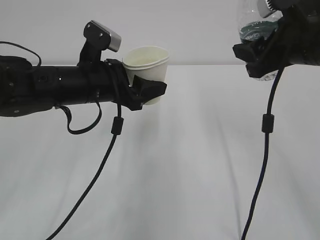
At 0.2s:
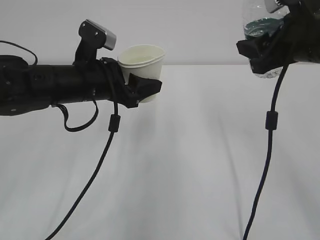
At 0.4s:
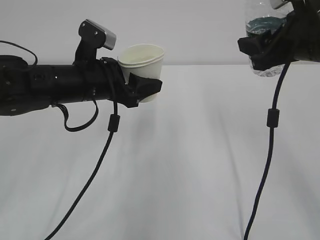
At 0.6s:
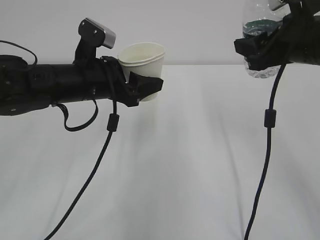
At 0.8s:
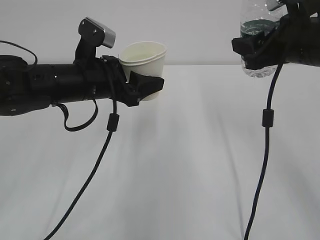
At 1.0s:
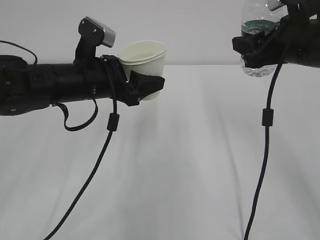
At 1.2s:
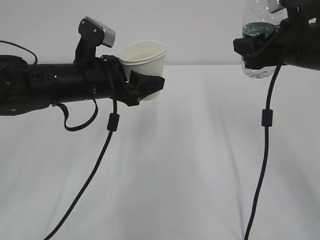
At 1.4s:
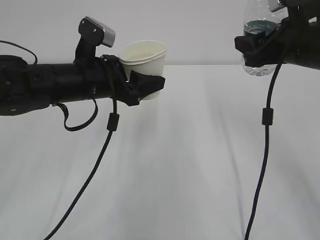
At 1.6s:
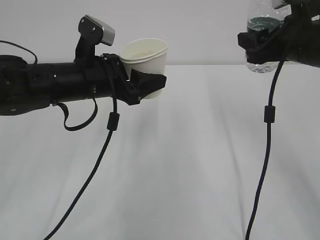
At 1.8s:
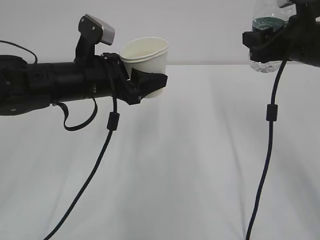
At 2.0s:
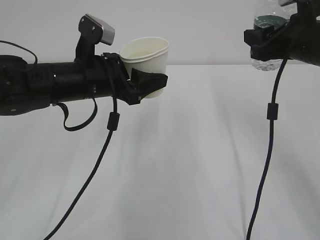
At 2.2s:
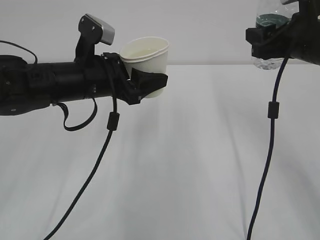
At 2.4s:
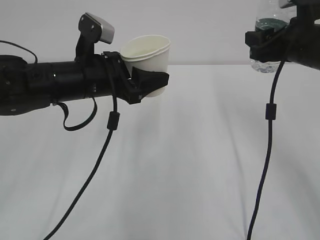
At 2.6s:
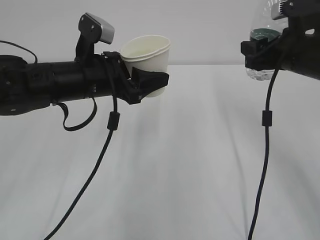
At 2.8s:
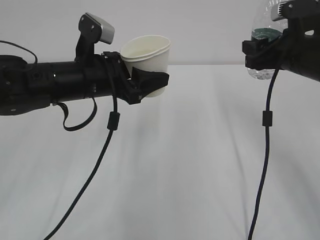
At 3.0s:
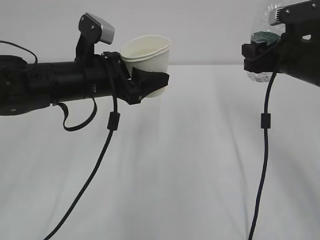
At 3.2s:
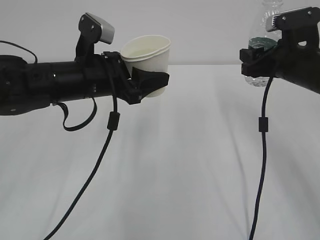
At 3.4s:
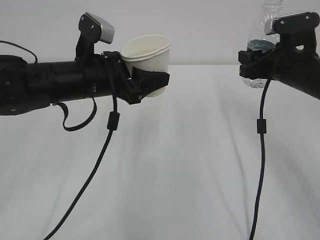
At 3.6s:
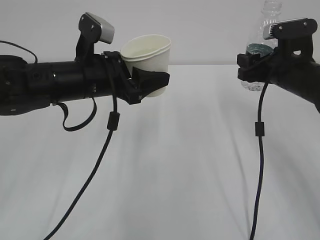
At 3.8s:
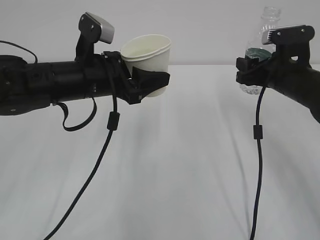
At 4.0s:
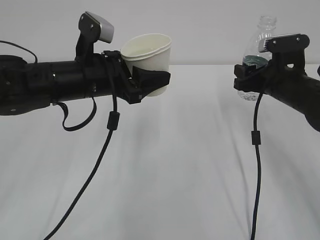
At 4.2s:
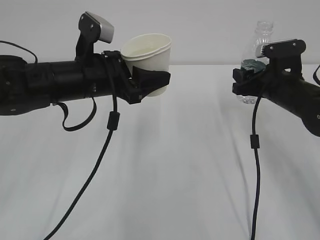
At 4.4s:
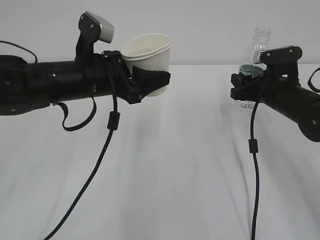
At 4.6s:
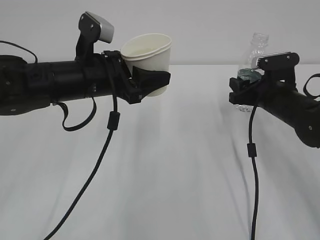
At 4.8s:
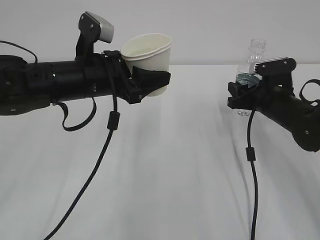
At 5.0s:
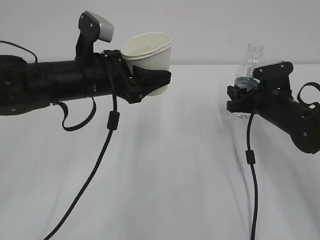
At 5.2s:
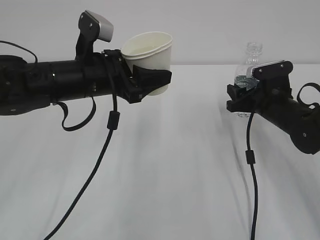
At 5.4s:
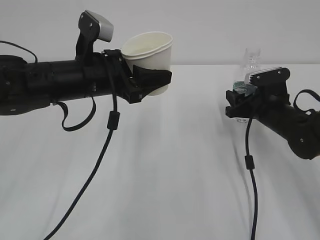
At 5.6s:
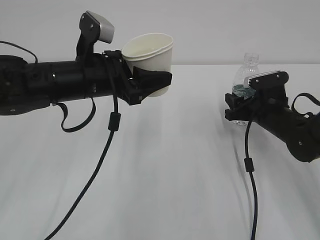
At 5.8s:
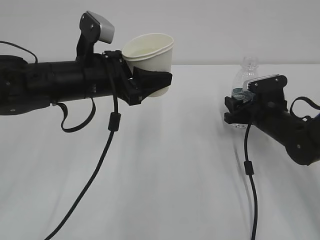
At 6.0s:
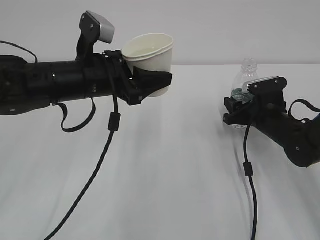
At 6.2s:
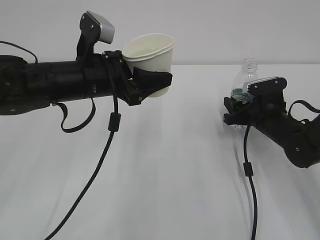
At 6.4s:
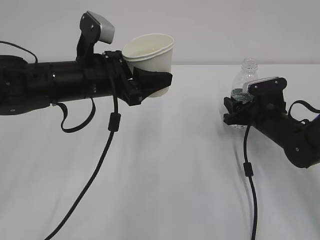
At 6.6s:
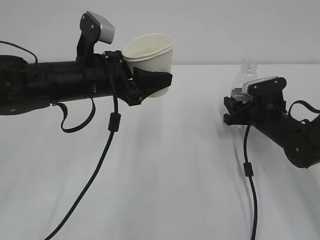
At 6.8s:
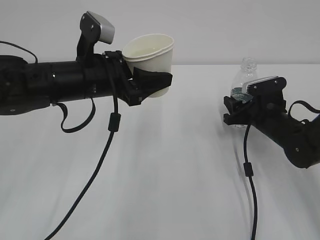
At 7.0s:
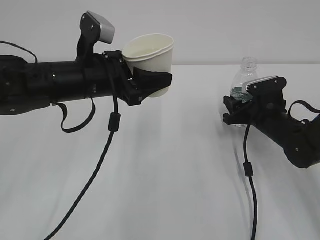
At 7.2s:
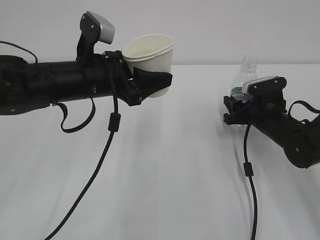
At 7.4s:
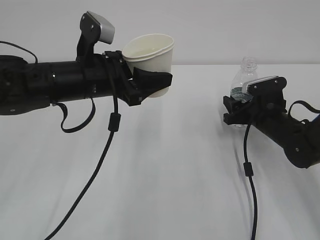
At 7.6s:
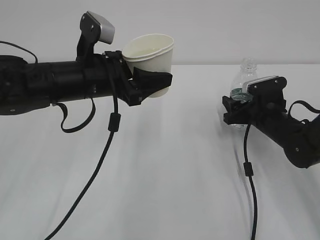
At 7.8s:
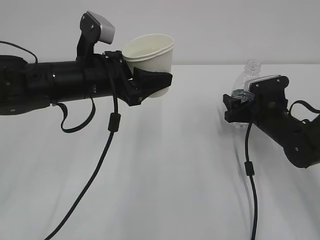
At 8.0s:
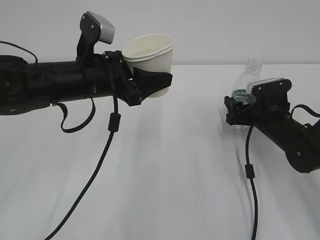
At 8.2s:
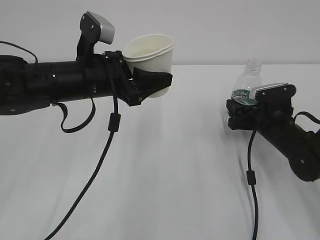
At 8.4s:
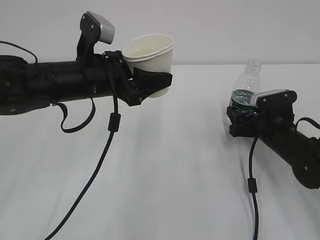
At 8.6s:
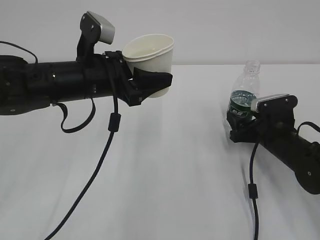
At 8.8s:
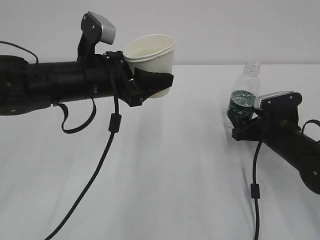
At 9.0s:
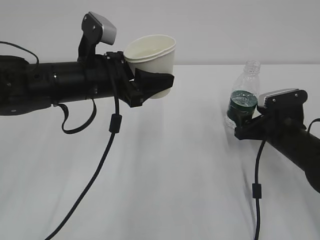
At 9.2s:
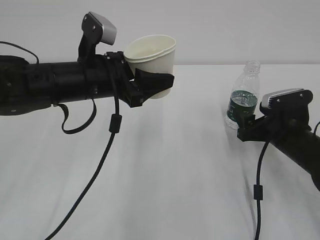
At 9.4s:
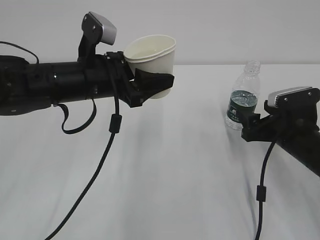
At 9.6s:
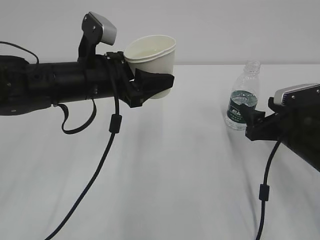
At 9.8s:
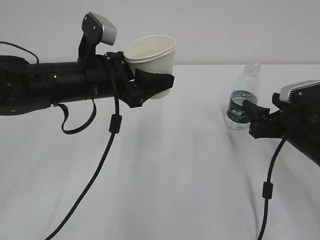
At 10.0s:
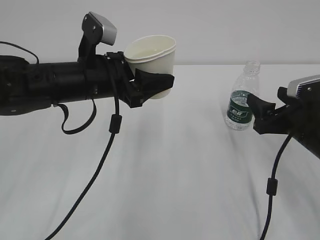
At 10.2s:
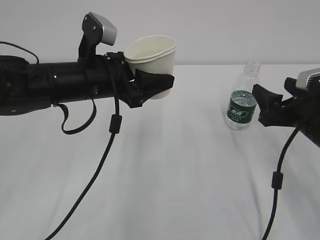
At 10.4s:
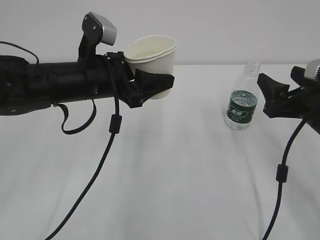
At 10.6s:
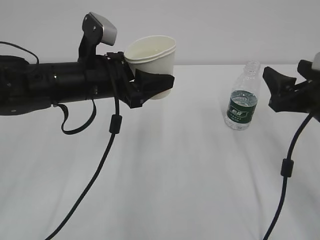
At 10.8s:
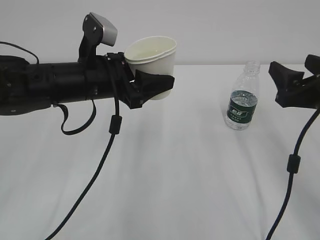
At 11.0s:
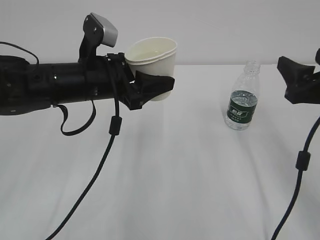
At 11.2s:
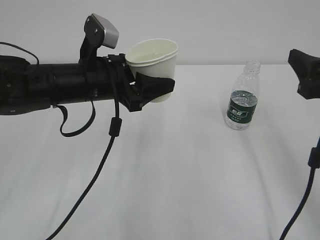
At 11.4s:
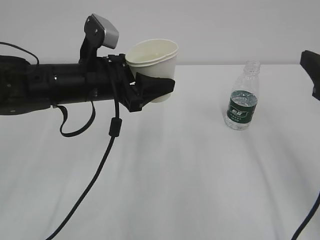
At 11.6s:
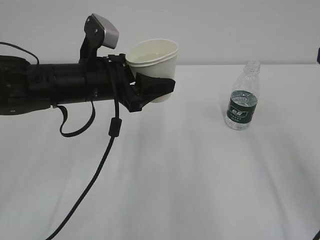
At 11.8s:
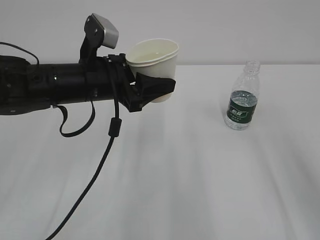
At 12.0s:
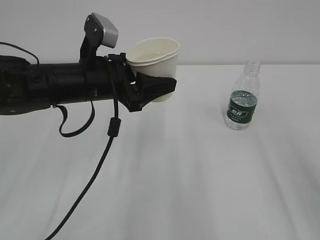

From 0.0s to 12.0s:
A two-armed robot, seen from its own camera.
From 0.0s to 1.6s: There are only small adjustments of the grippers.
From 1.6s to 3.0s: The grippers make only small movements.
From 3.0s to 4.4s: The right gripper is displaced downward by roughly 10 cm.
From 4.4s to 6.0s: The right gripper moves downward, about 5 cm.
From 6.0s to 7.6s: The right gripper opens its fingers.
From 7.6s to 9.0s: The right gripper is displaced backward by about 5 cm, and opens up.
From 9.0s to 10.4s: The right gripper goes approximately 10 cm upward and backward.
From 10.4s to 12.0s: The right gripper moves backward and upward, approximately 20 cm.

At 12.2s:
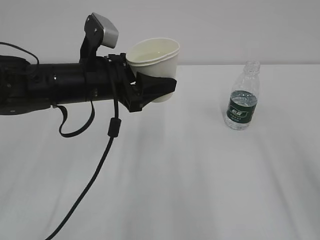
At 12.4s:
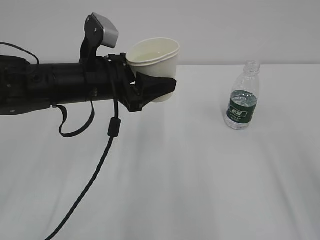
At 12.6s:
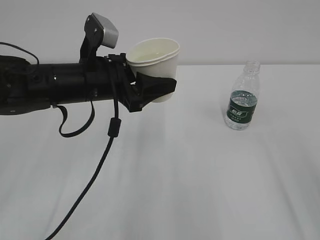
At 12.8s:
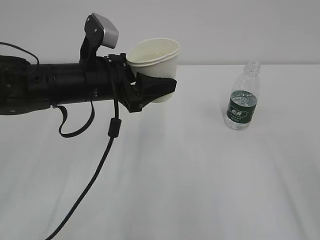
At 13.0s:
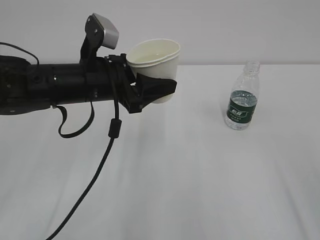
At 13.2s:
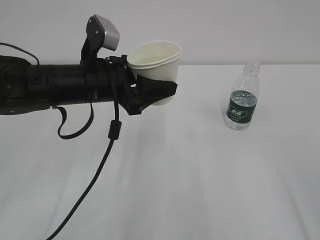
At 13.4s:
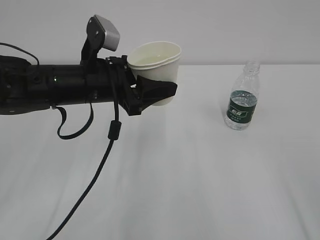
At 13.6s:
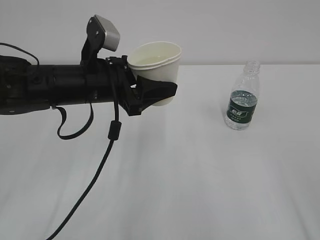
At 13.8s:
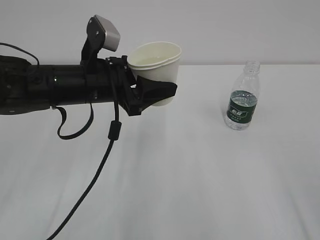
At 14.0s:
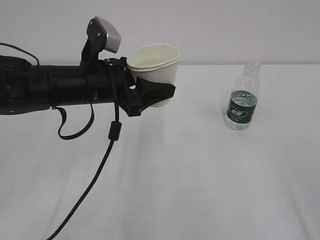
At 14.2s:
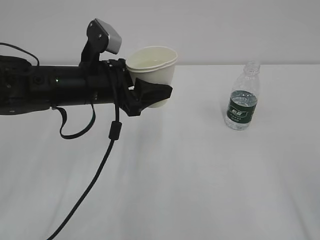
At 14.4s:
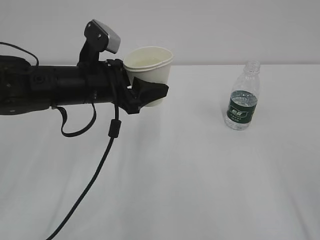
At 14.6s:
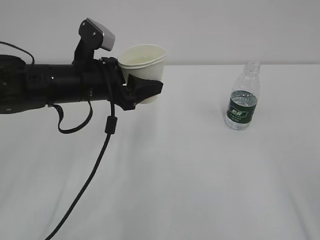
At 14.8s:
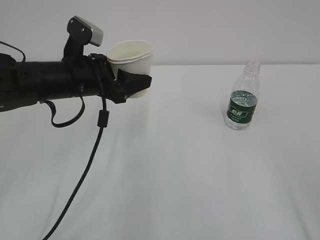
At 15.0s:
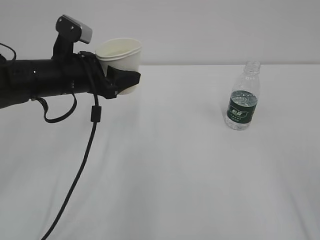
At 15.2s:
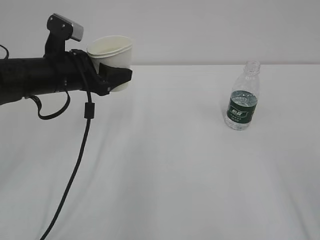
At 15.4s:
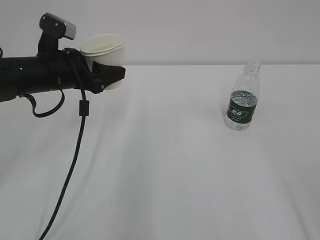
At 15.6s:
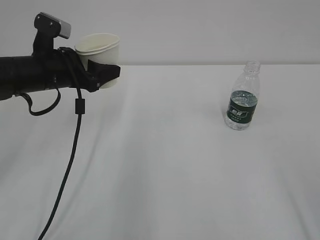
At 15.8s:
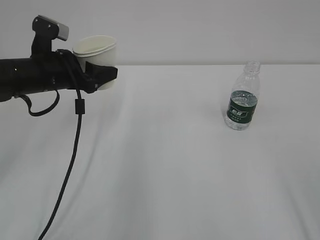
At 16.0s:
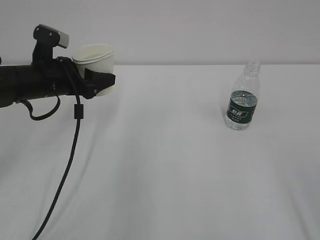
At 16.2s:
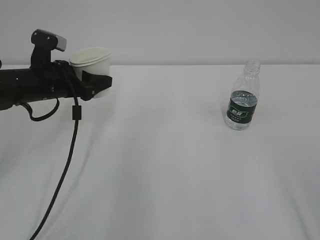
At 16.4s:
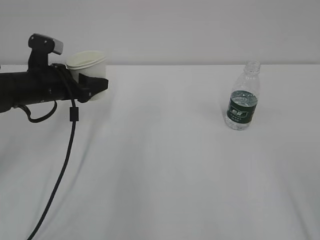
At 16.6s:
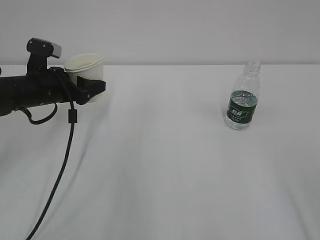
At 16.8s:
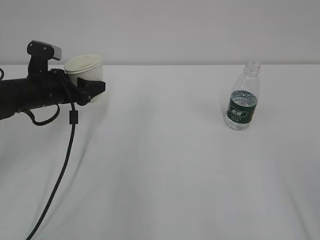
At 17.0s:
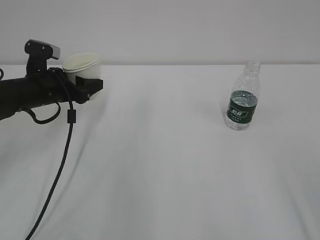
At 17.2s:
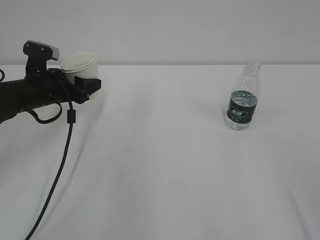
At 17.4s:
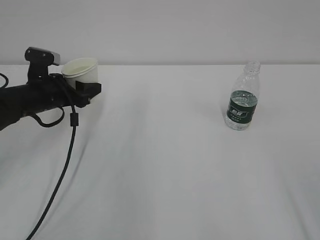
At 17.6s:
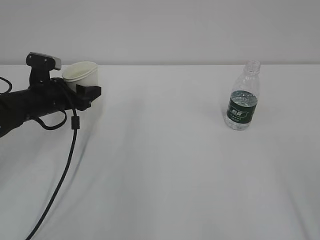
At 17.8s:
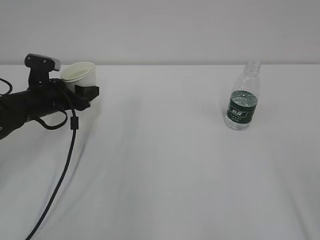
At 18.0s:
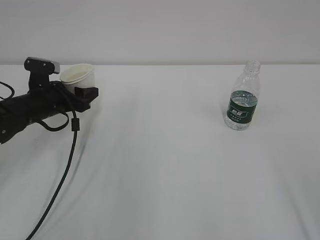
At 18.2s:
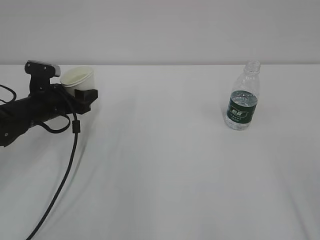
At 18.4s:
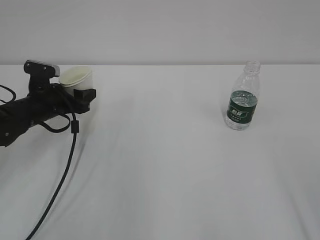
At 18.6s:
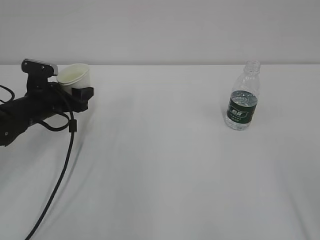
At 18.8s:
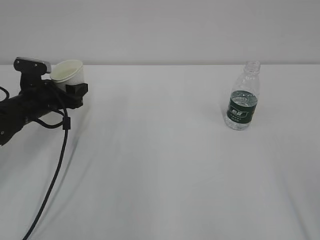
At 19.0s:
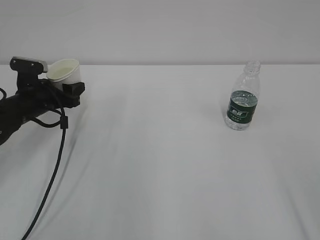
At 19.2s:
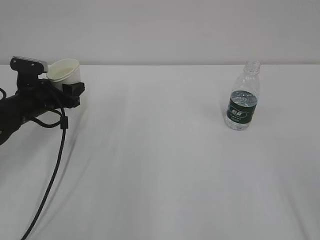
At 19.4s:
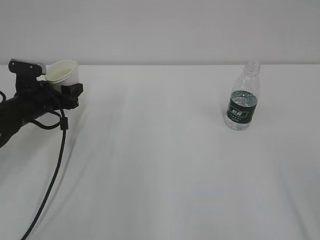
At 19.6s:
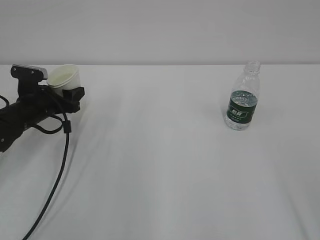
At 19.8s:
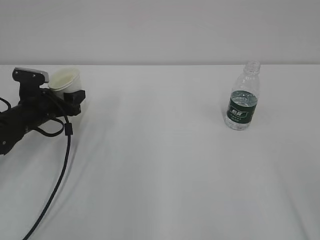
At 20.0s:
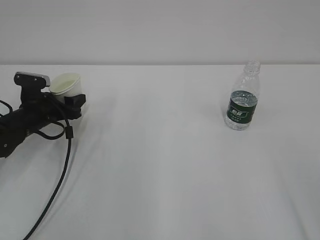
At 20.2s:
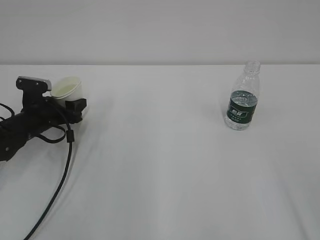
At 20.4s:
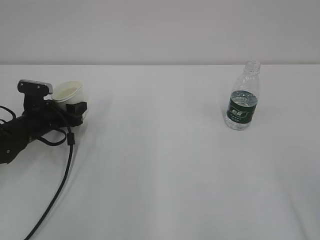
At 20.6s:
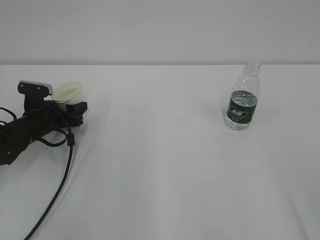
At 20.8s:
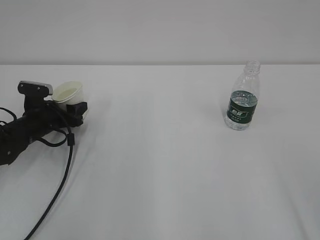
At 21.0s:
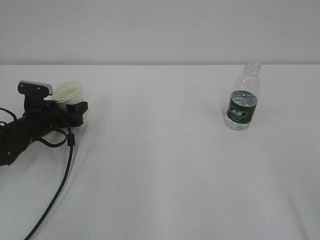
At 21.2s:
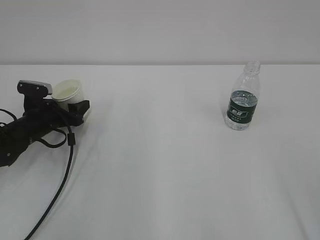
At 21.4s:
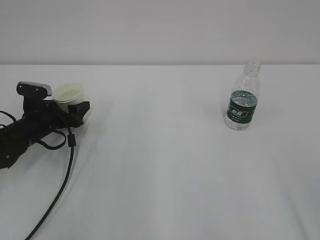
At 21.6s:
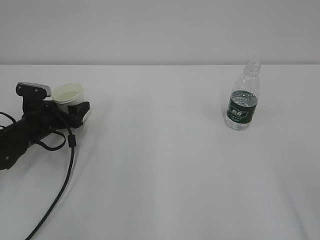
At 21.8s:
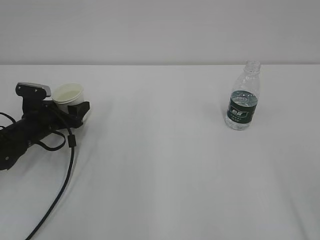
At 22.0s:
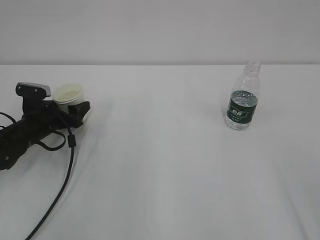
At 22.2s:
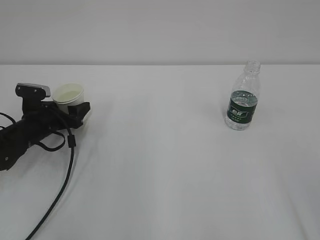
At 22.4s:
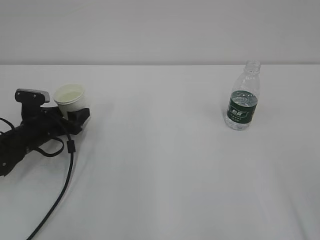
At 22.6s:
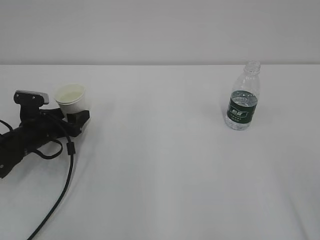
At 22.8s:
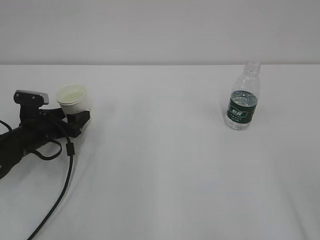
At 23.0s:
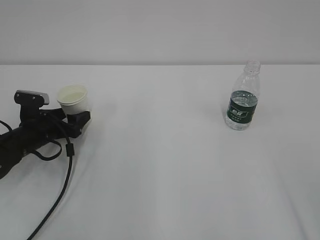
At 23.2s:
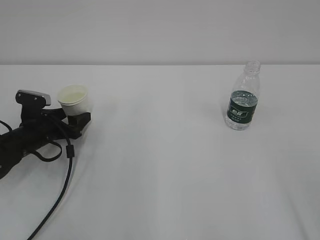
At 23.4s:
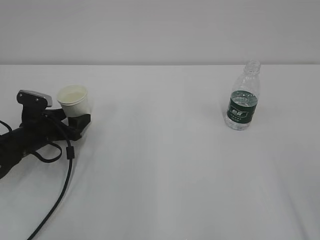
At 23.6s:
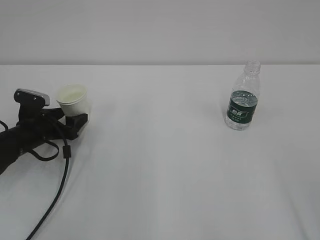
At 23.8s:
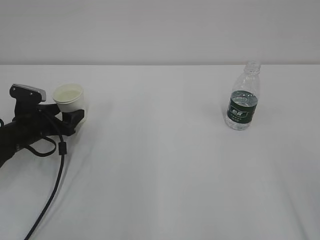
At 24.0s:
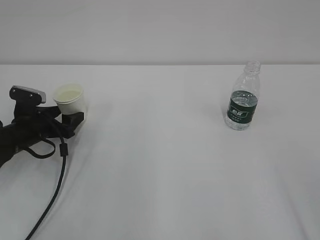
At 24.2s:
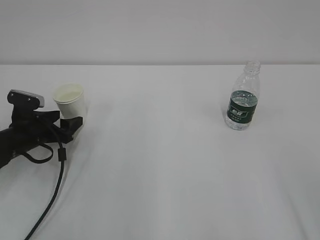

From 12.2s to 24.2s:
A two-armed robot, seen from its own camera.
From 12.2s to 13.8s: The right gripper heads backward, covering some 5 cm.
From 13.8s to 15.2s: The left gripper shifts roughly 5 cm to the left.
From 15.2s to 16.6s: The left gripper shifts some 5 cm to the left.
From 16.6s to 18.2s: The left gripper goes about 5 cm downward.
From 18.2s to 21.2s: The grippers stay close to where they were, moving slightly.
From 21.2s to 24.2s: There are only small adjustments of the grippers.
